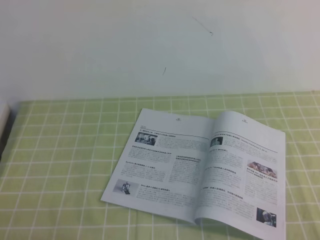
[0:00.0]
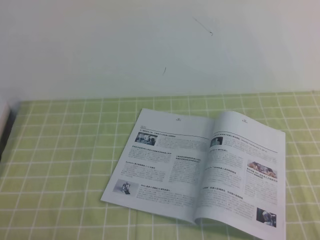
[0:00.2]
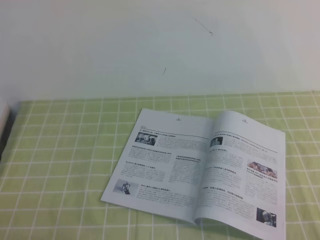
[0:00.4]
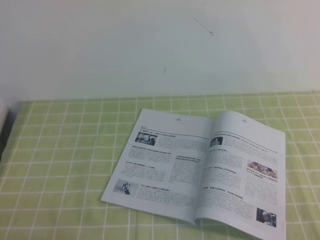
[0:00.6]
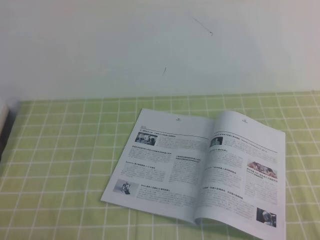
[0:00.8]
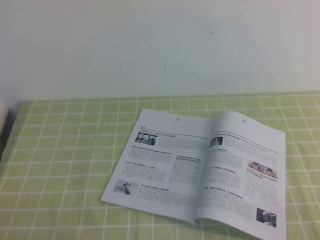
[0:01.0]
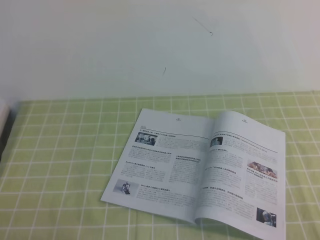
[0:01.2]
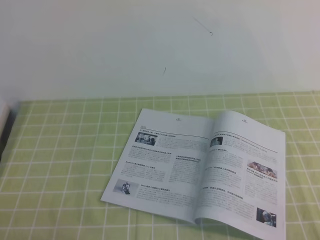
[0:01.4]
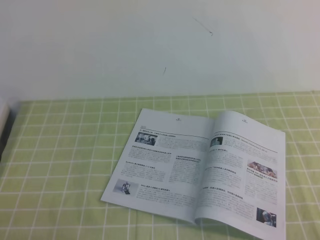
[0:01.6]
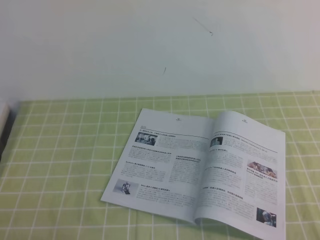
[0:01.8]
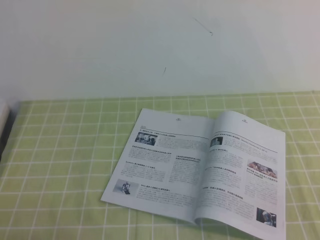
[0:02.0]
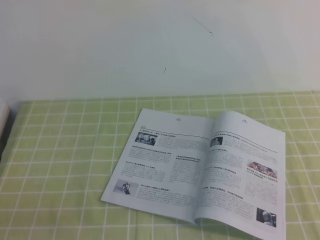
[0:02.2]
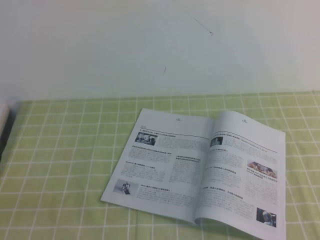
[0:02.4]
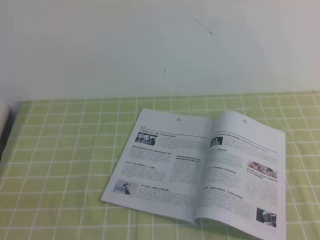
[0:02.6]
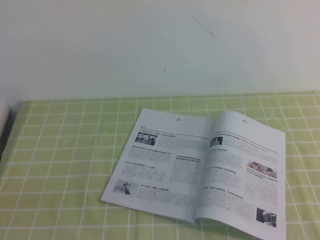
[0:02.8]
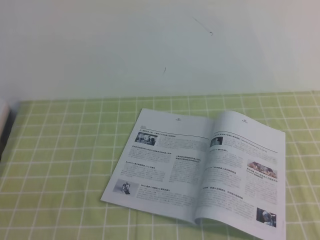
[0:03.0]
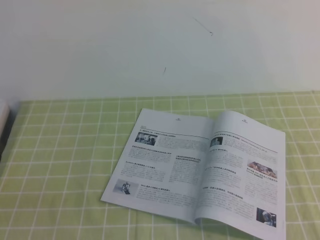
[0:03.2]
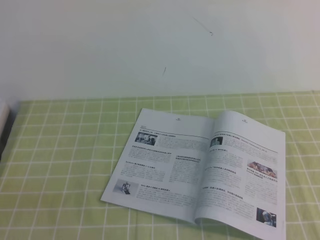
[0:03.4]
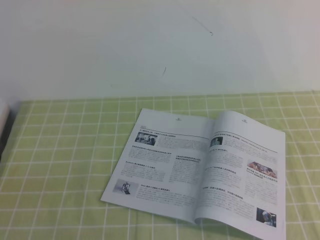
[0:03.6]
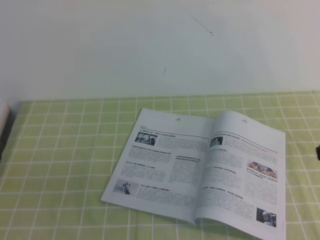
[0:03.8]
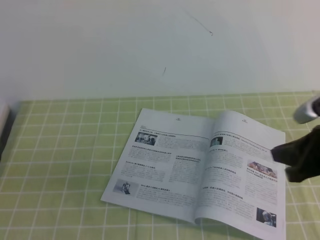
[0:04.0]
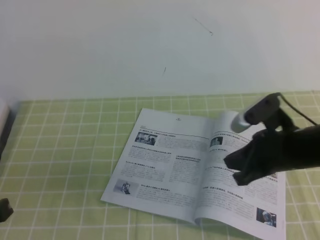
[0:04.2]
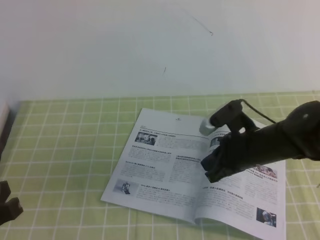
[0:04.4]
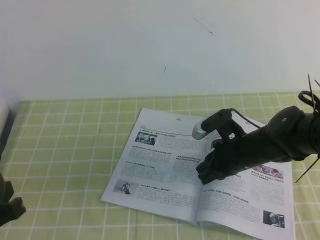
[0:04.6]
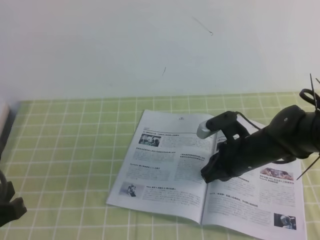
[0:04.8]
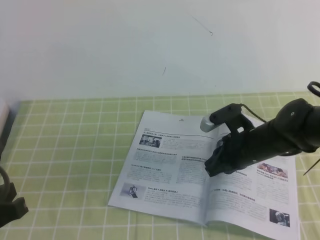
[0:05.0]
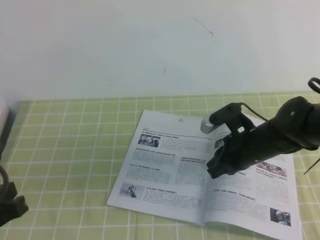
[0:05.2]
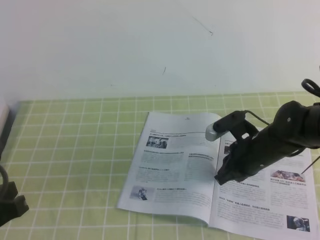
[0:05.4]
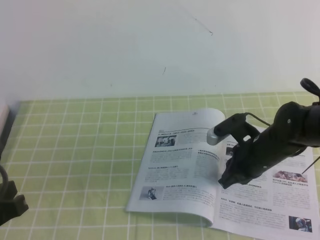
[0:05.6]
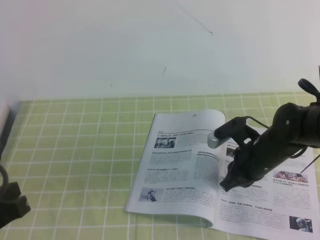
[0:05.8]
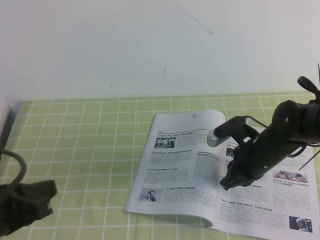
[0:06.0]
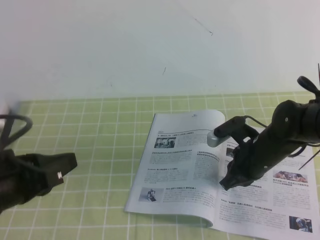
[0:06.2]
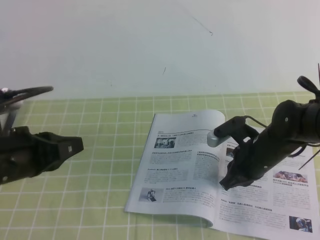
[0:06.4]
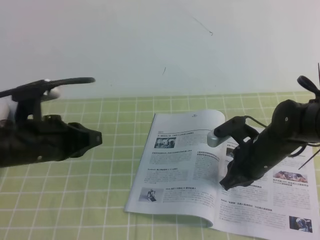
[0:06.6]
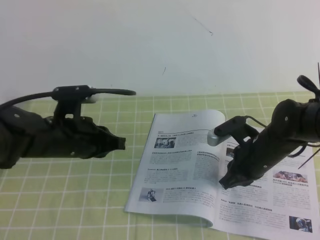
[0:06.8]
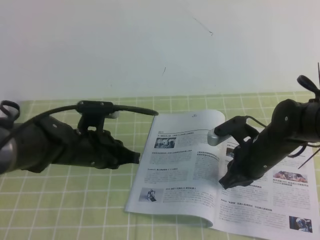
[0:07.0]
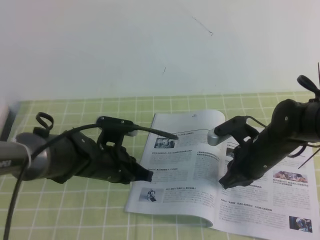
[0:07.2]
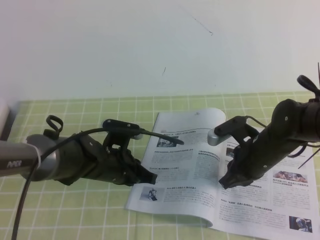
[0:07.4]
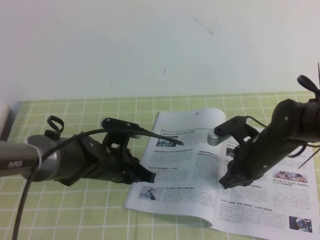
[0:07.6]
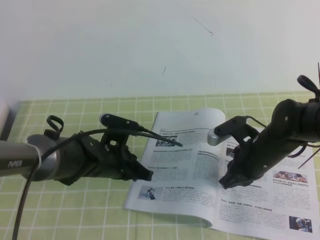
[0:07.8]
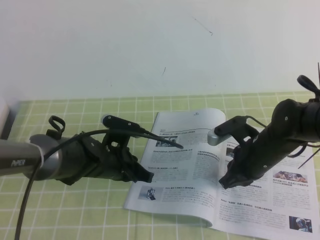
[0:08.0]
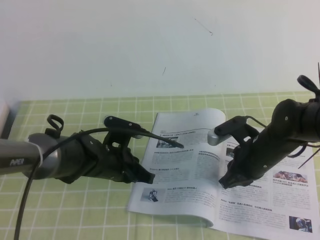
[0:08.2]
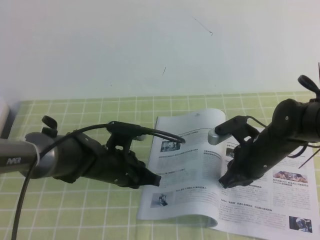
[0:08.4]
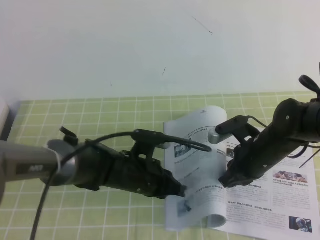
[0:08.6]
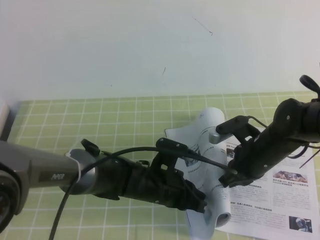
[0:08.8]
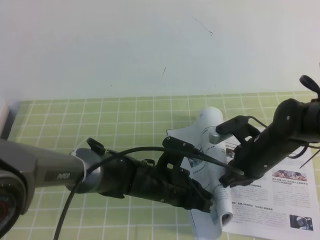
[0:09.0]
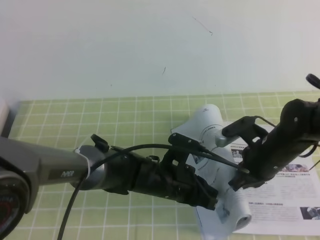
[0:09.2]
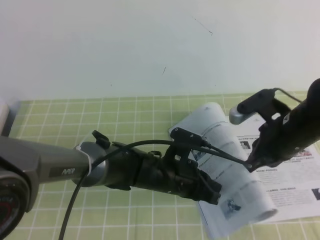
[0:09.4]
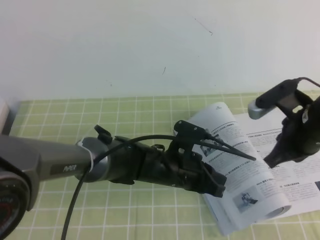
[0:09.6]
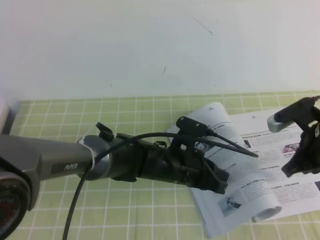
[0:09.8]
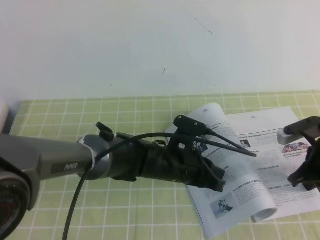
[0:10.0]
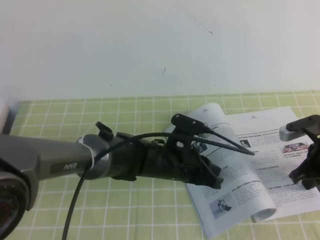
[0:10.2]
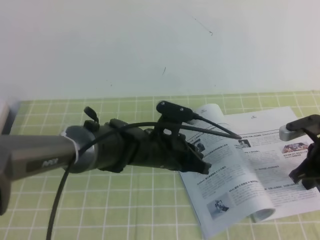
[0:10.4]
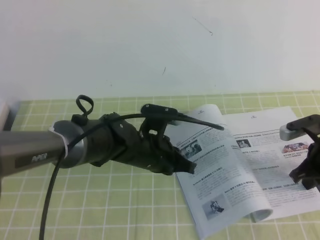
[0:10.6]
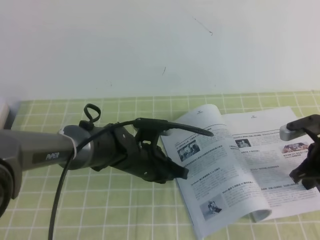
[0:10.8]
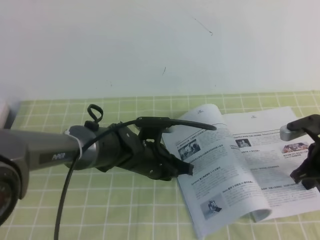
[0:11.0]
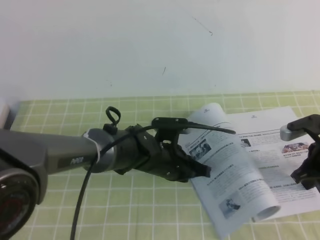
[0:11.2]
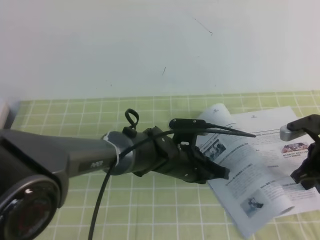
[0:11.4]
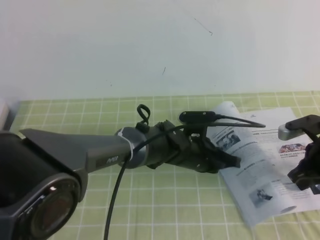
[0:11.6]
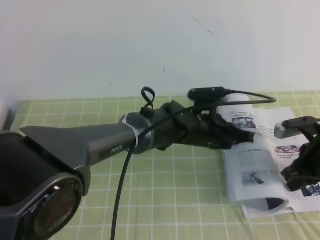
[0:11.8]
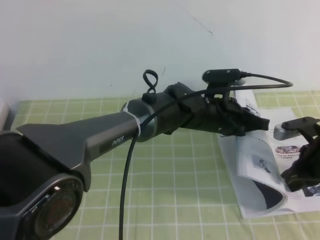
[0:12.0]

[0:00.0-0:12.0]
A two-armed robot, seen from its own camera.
Task of the whole recording: on the green tablecloth, hold the book with one hand and close it with the other.
0:00.0 to 0:01.6: Both grippers stay about where they are.
0:03.0 to 0:04.4: The right gripper moves forward, downward and to the left, about 40 cm; the left gripper shifts roughly 10 cm forward.
0:04.4 to 0:06.0: The right gripper is displaced downward by some 5 cm.
0:06.0 to 0:07.6: The left gripper goes about 25 cm forward, to the right and downward.
0:07.6 to 0:09.0: The left gripper moves to the right, roughly 10 cm.
0:09.0 to 0:10.4: The left gripper shifts by approximately 5 cm. The right gripper moves to the right, approximately 10 cm.
0:10.4 to 0:12.0: The left gripper travels to the right by roughly 10 cm.

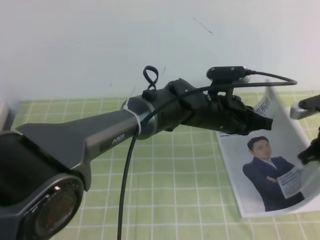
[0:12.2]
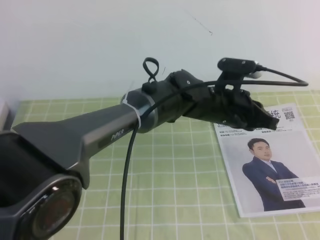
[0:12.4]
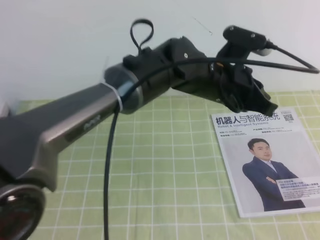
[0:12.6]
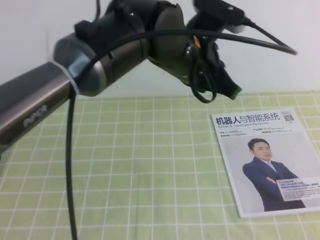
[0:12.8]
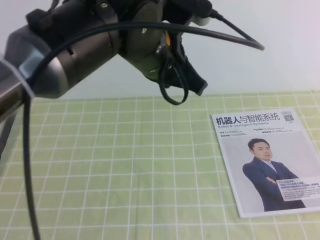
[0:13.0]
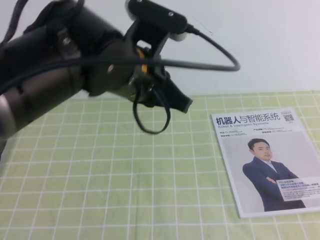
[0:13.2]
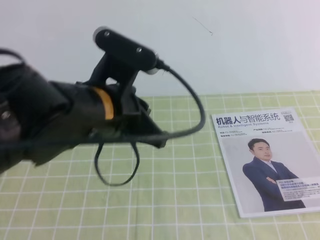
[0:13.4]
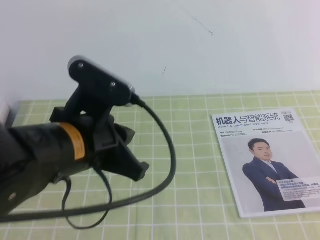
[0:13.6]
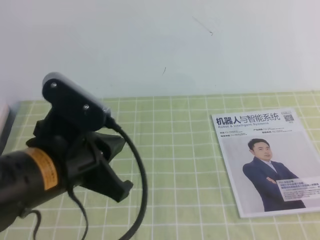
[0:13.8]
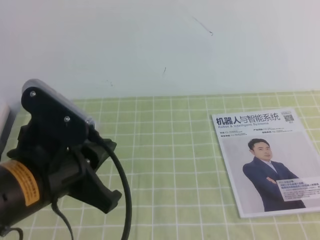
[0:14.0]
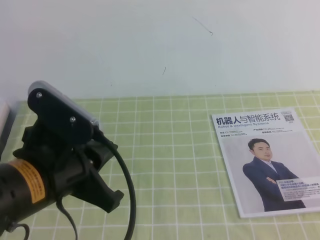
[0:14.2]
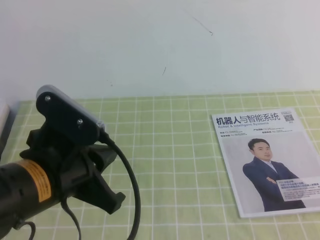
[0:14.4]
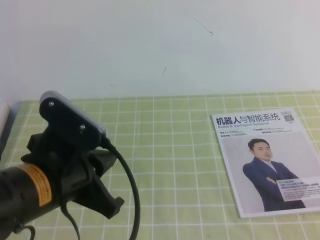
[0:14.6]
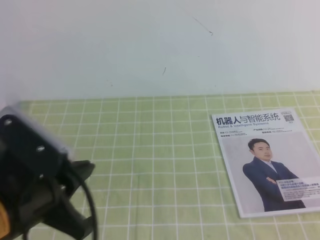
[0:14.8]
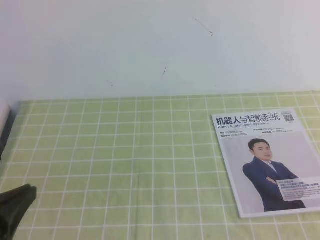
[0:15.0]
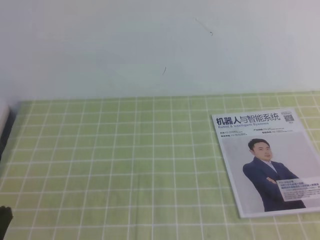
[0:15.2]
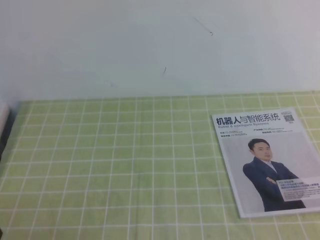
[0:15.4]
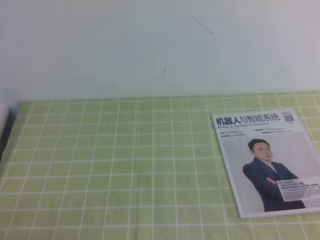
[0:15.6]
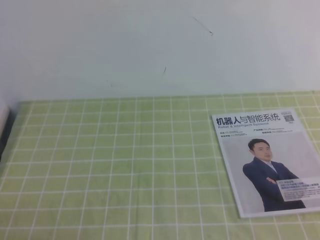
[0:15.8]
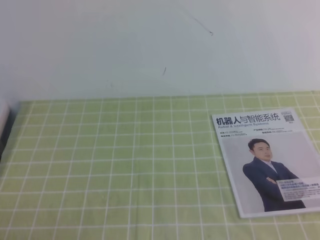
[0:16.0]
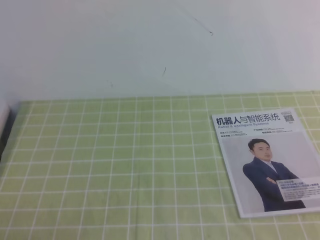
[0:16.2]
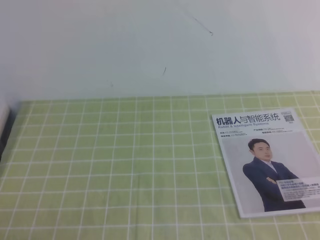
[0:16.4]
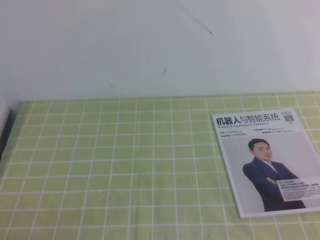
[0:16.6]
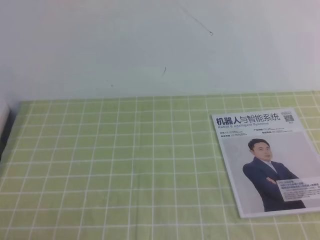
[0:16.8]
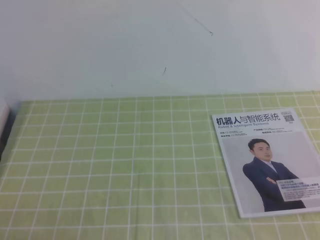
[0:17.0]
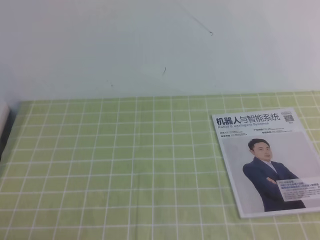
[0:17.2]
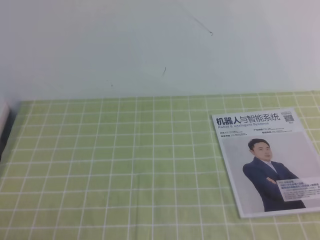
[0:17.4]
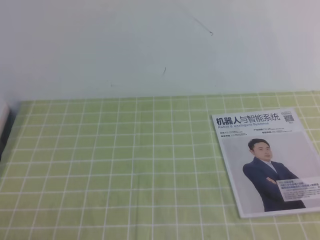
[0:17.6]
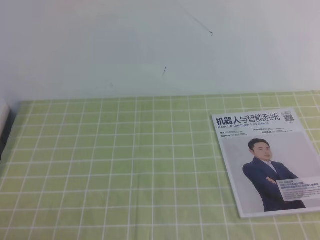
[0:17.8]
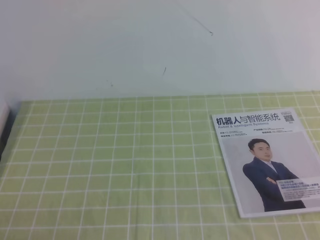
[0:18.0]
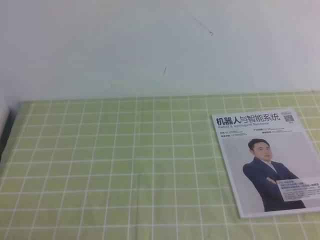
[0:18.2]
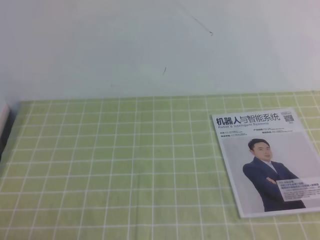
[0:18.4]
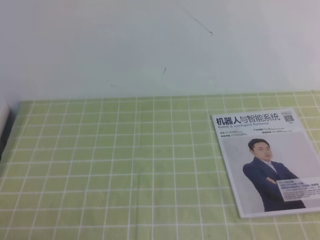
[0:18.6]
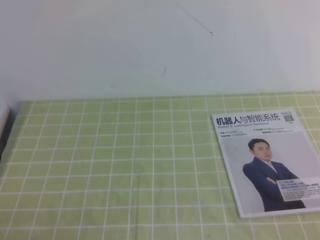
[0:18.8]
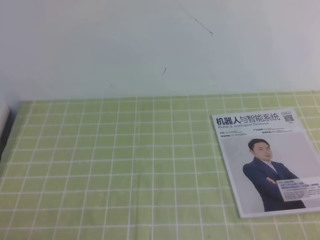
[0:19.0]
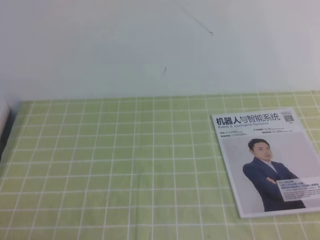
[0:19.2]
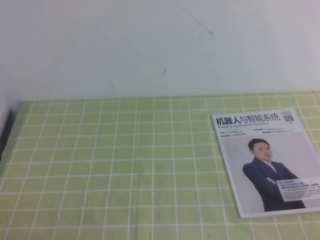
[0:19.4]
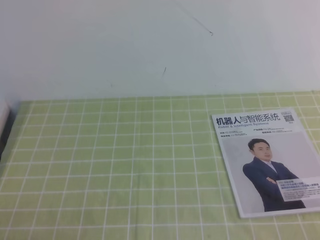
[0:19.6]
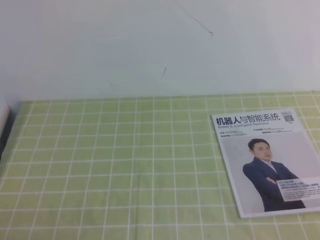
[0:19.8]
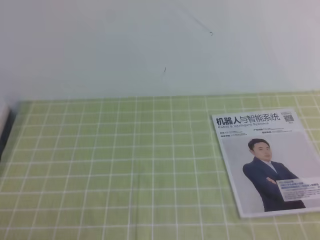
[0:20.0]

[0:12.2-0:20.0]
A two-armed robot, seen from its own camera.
Task of the whole recording: on the green tablecloth, hold the book with one hand and close it with the other.
Step, 0:12.2 to 0:20.0: Close the open book.
0:12.2 to 0:13.8: The right gripper moves backward, roughly 30 cm. Meanwhile the left gripper moves to the left, backward and upward, about 30 cm.
0:13.8 to 0:15.4: The left gripper moves to the left, backward and downward, some 20 cm.

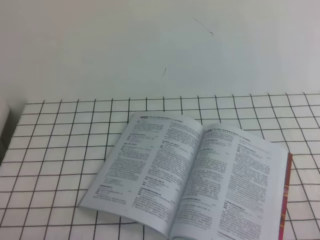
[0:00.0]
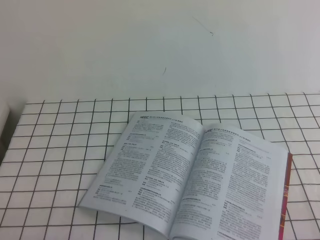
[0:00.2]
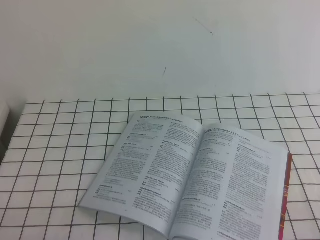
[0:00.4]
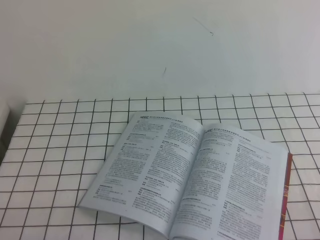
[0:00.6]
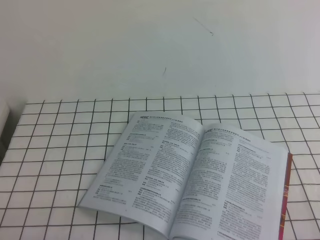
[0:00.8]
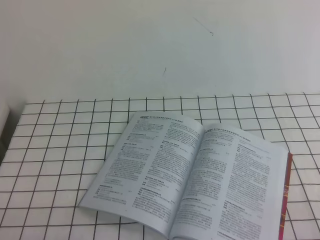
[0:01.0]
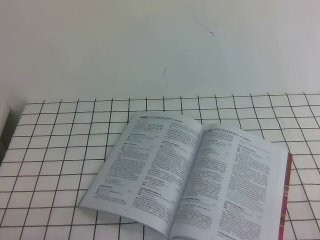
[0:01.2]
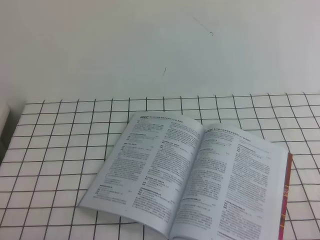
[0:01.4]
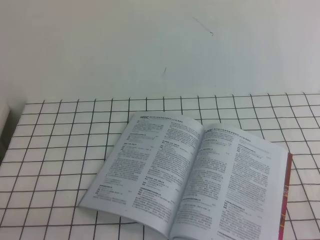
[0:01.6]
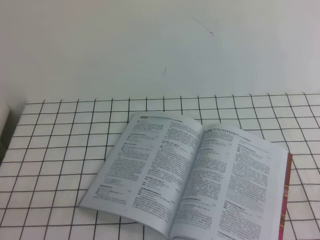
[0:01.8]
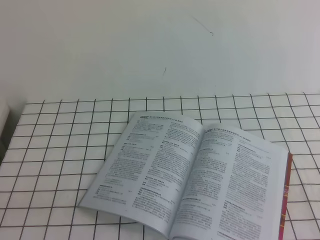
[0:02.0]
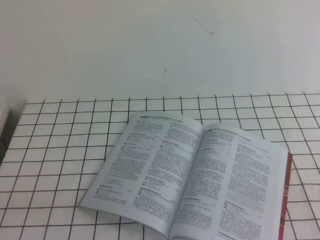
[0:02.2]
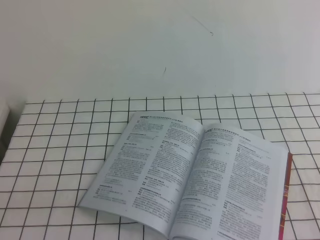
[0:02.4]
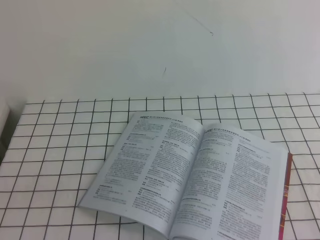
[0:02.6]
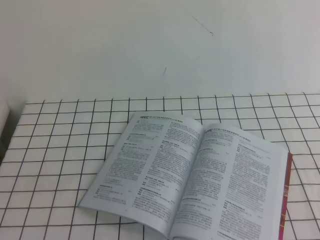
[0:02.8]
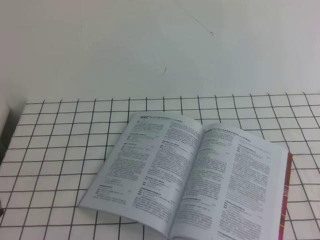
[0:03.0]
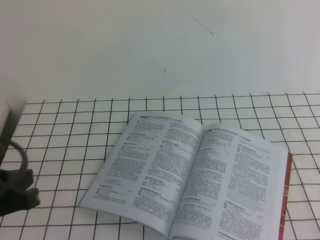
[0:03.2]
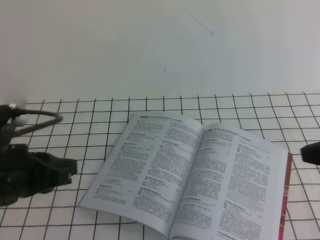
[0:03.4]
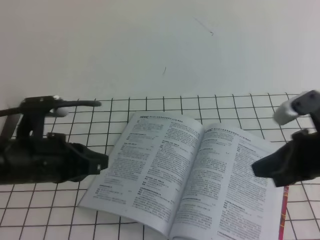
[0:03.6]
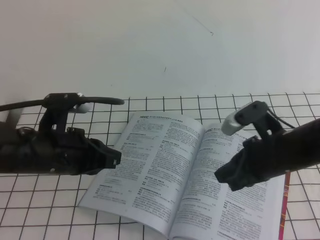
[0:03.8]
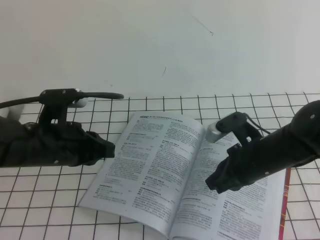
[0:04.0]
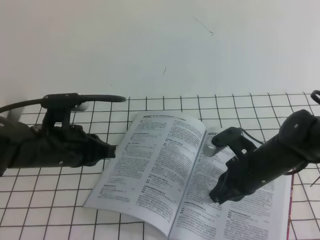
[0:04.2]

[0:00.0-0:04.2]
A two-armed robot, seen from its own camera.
Task of the whole recording: on the white tablecloth, hold the book with one hand and close it with the other.
0:00.0 to 0:01.4: Neither gripper changes place.
0:02.8 to 0:04.2: The right gripper goes about 35 cm forward, to the left and downward, while the left gripper goes roughly 25 cm forward.
